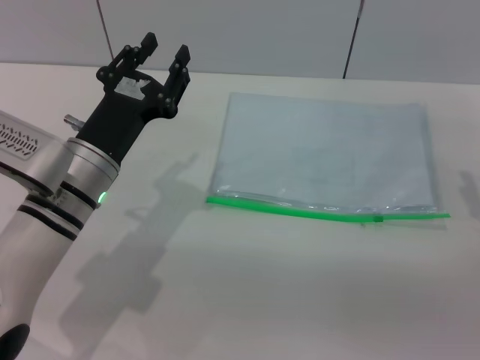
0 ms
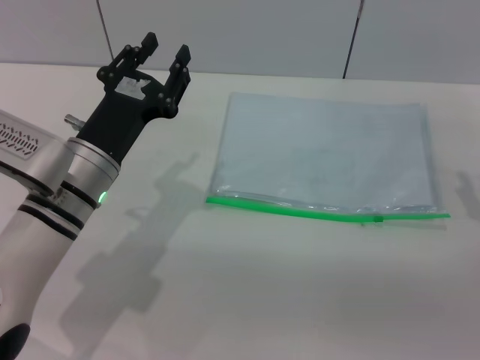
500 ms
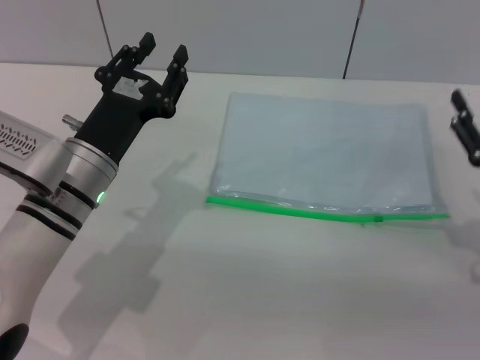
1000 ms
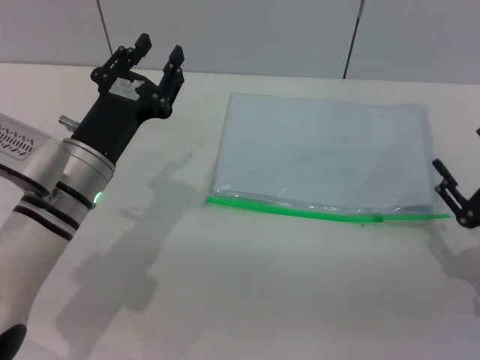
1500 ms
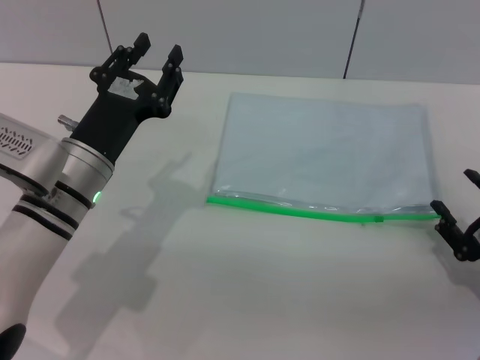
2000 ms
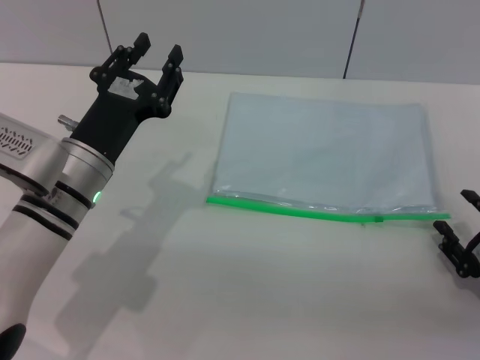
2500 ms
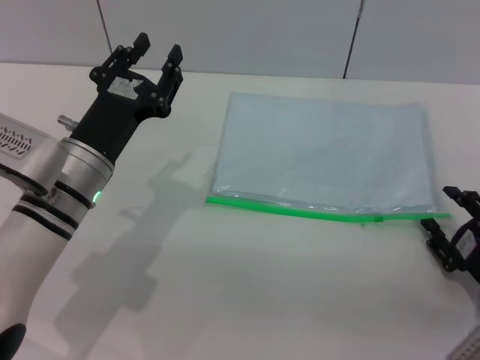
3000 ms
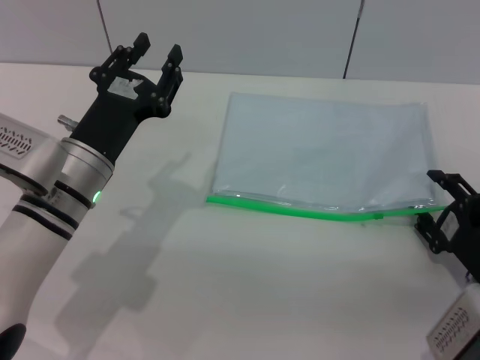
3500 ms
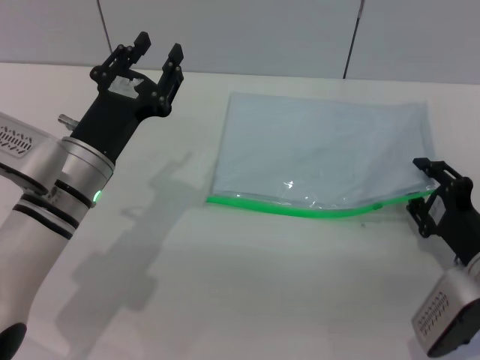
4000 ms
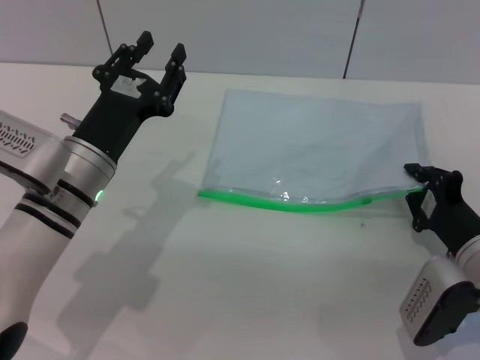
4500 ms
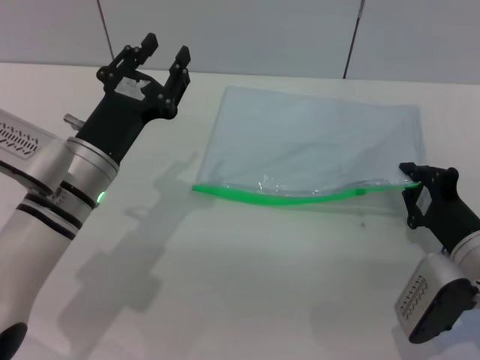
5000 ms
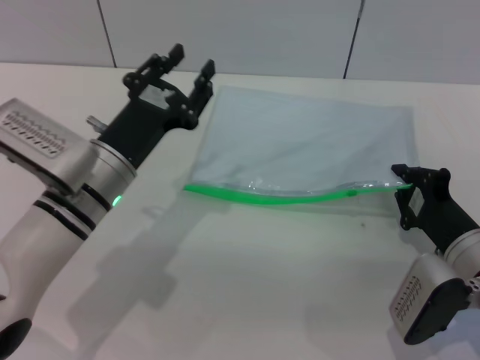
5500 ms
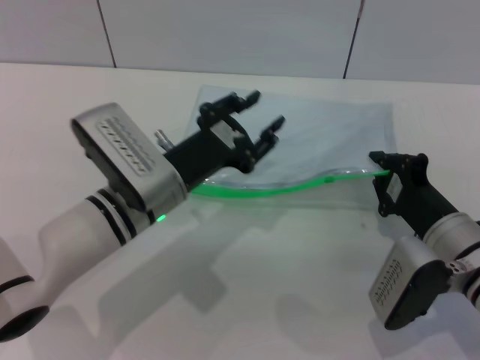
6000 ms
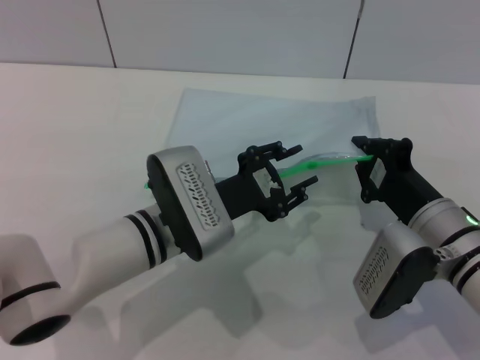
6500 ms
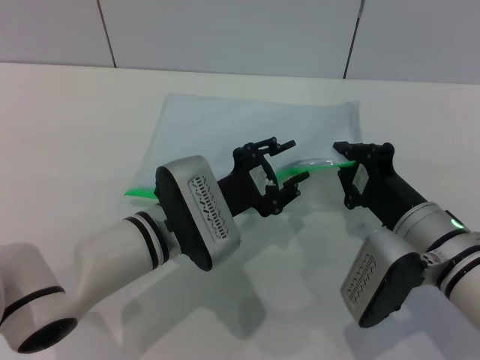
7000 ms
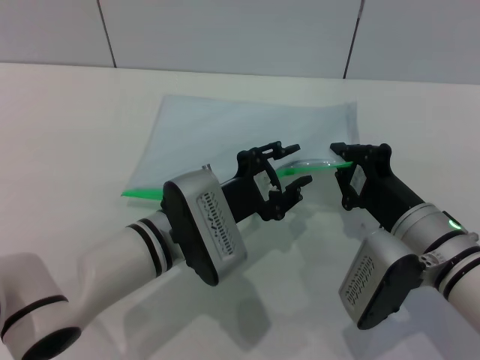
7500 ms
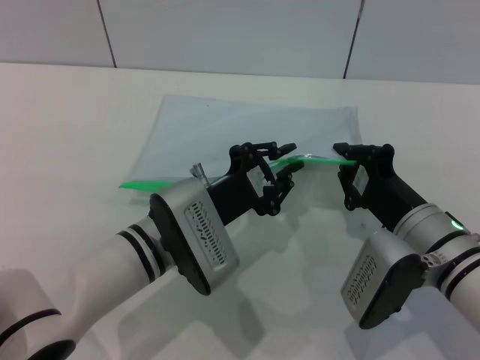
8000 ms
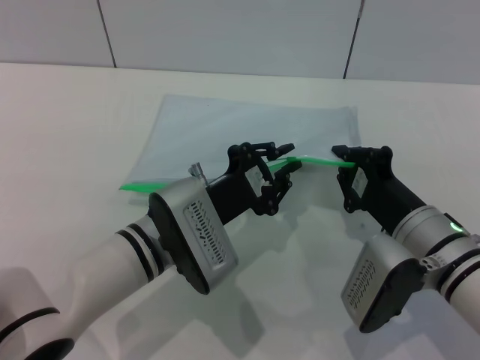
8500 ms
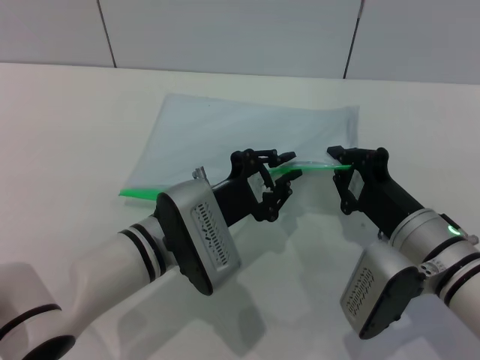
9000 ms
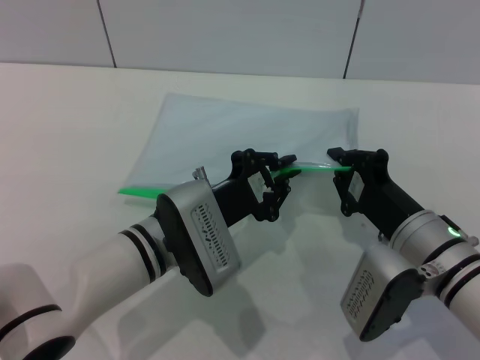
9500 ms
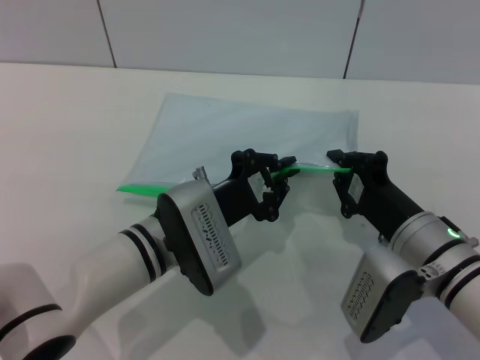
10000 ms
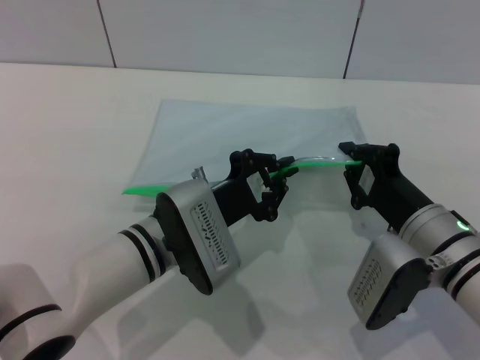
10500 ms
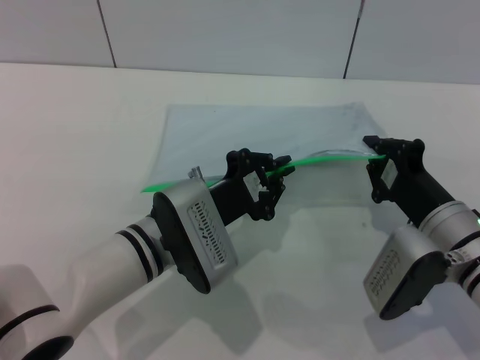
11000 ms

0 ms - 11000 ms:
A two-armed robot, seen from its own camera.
Step, 0 ms - 6000 ms: Pick up the transparent plastic bag with the right gripper.
0 ms - 2000 ms: The right gripper moves backward and downward, about 10 cm.
2000 ms - 3500 ms: The grippers move only a little.
3500 ms - 5500 ms: The right gripper closes up.
5500 ms - 7500 ms: The right gripper travels to the left by roughly 5 cm; the left gripper is displaced to the right by about 5 cm.
7500 ms - 9000 ms: The left gripper closes.
9000 ms - 11000 ms: The grippers stay close to where they were, moving slightly.

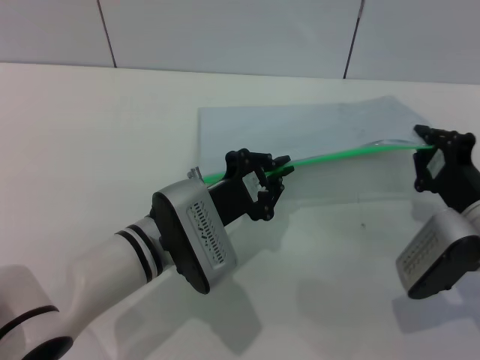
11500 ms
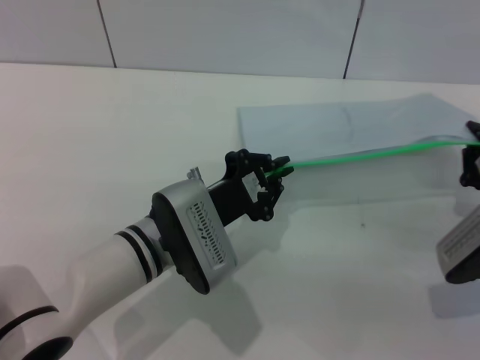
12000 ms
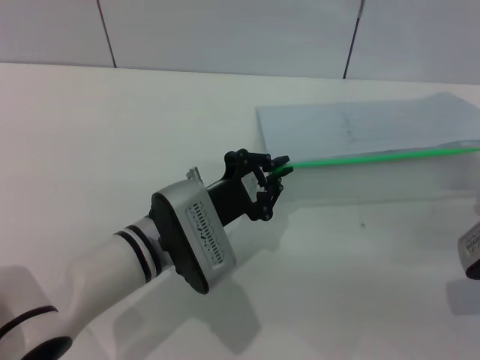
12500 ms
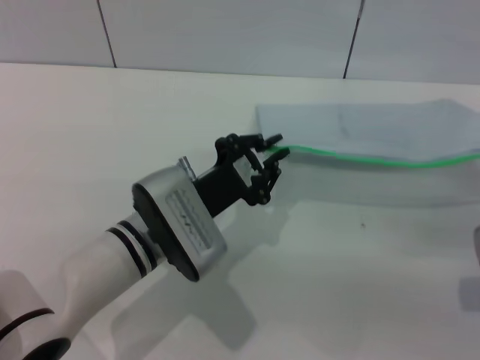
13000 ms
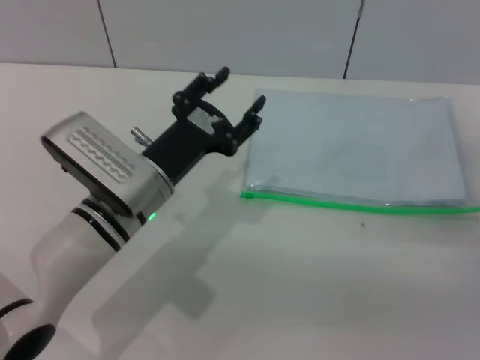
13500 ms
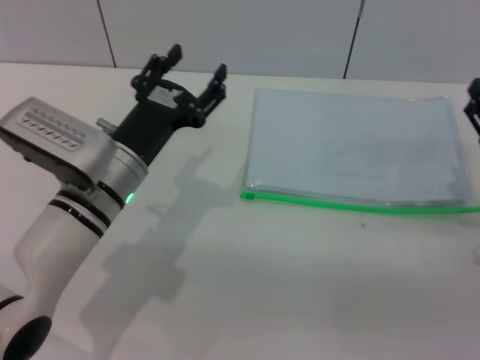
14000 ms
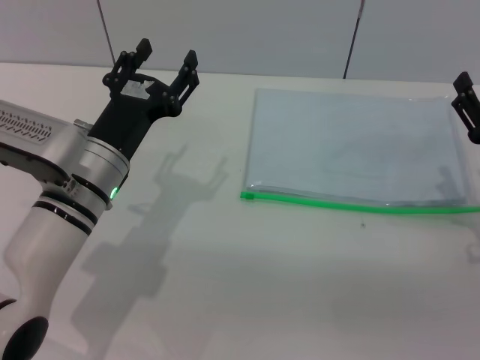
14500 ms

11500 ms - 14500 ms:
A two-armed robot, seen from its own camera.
11500 ms - 13000 ms: The right gripper goes roughly 10 cm to the right.
13000 ms - 14500 ms: The left gripper is displaced to the left by about 5 cm, and opens its fingers, while the right gripper opens.
